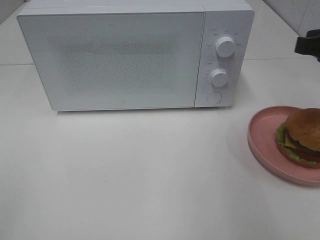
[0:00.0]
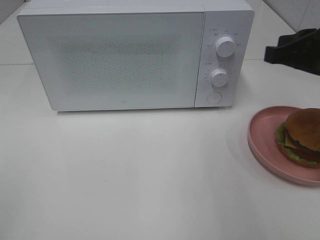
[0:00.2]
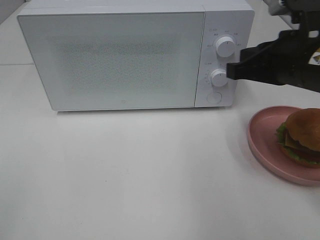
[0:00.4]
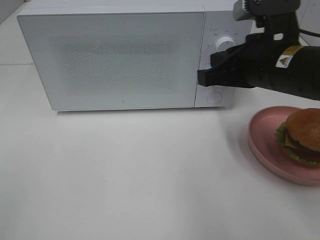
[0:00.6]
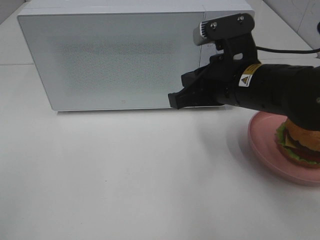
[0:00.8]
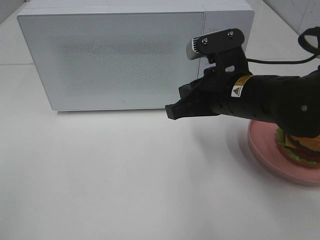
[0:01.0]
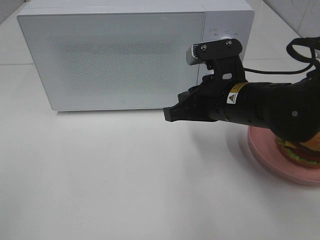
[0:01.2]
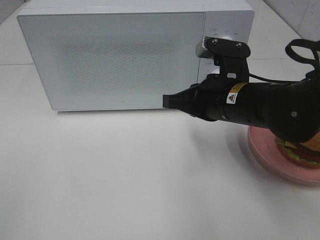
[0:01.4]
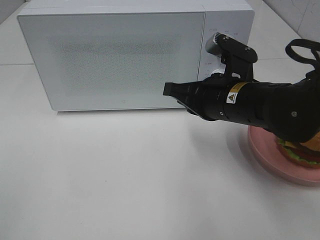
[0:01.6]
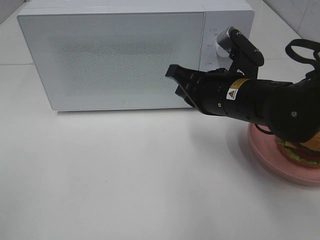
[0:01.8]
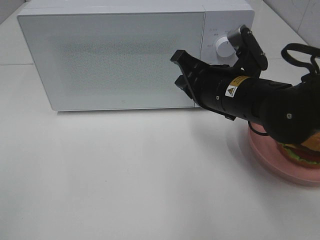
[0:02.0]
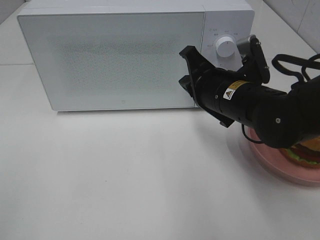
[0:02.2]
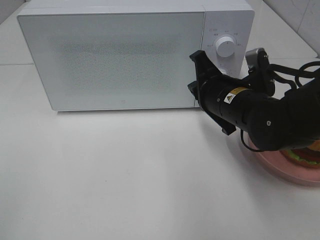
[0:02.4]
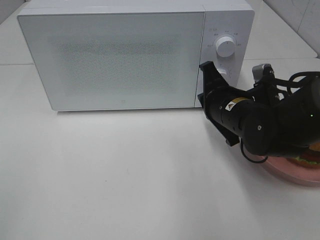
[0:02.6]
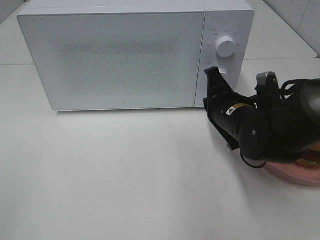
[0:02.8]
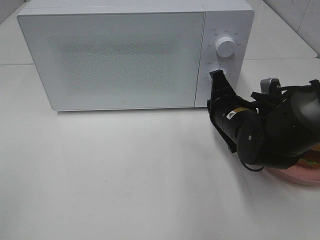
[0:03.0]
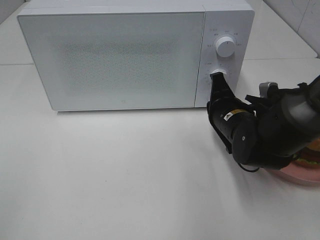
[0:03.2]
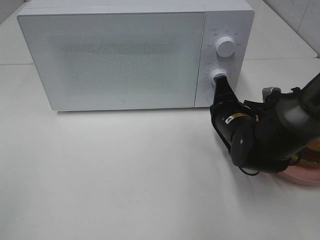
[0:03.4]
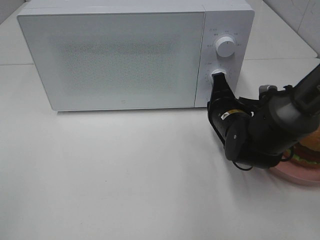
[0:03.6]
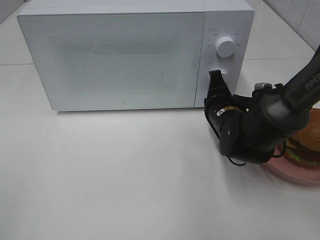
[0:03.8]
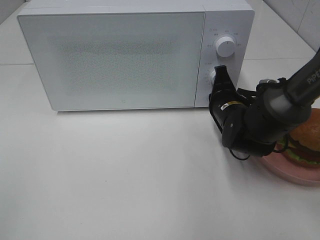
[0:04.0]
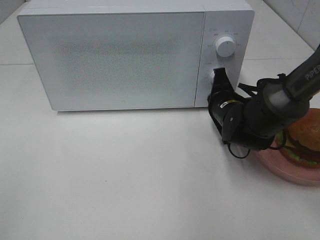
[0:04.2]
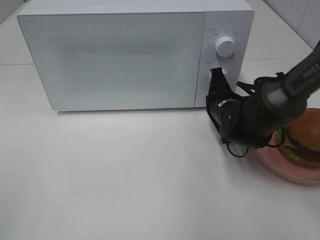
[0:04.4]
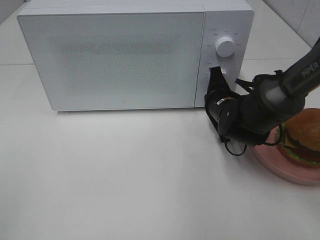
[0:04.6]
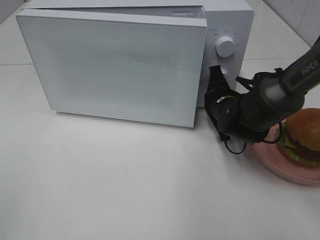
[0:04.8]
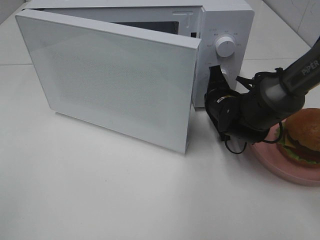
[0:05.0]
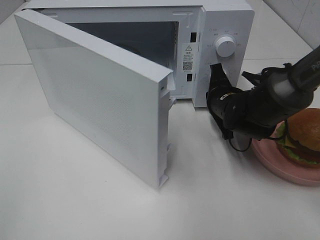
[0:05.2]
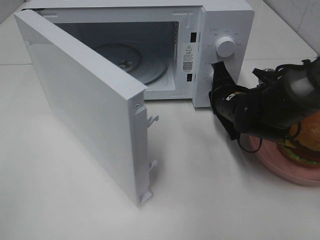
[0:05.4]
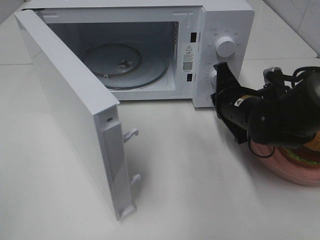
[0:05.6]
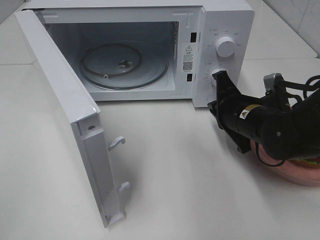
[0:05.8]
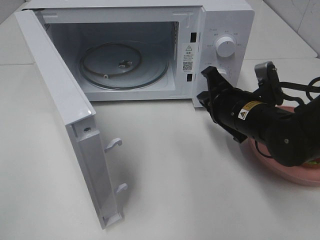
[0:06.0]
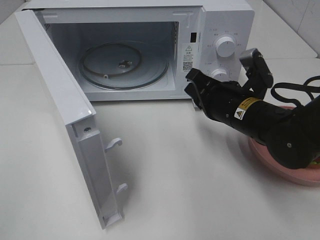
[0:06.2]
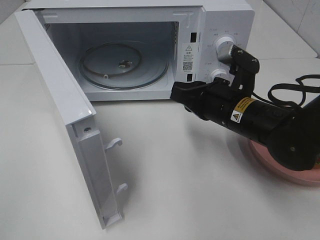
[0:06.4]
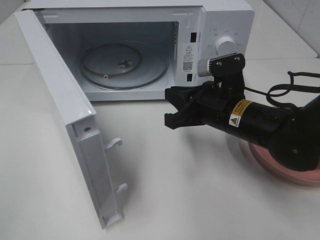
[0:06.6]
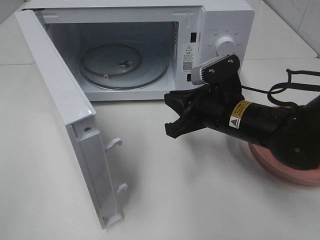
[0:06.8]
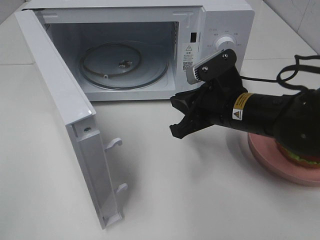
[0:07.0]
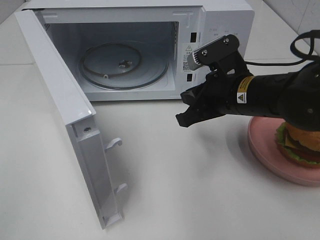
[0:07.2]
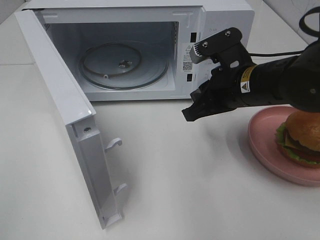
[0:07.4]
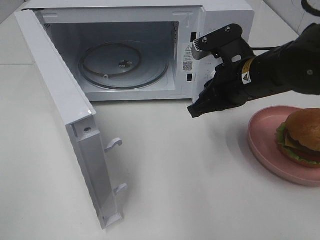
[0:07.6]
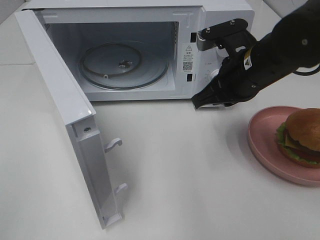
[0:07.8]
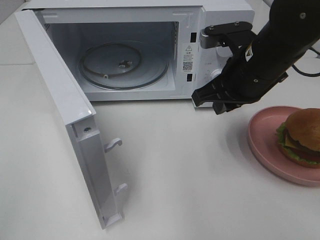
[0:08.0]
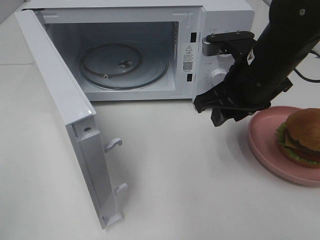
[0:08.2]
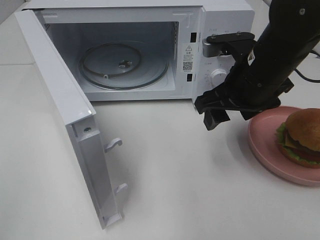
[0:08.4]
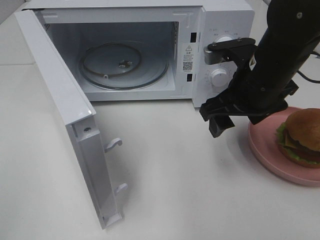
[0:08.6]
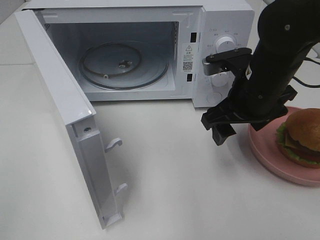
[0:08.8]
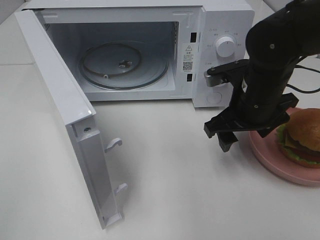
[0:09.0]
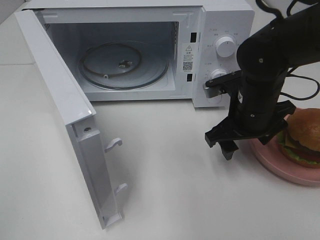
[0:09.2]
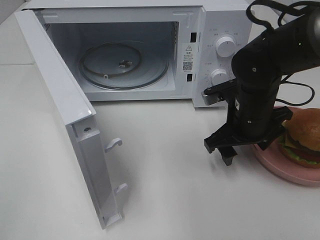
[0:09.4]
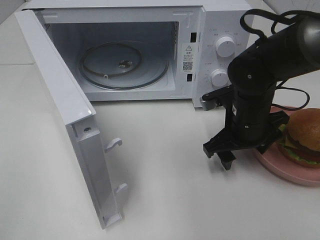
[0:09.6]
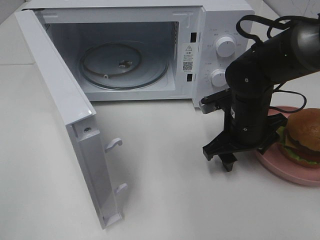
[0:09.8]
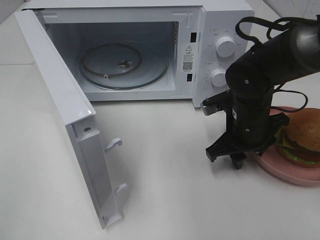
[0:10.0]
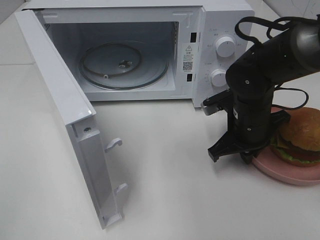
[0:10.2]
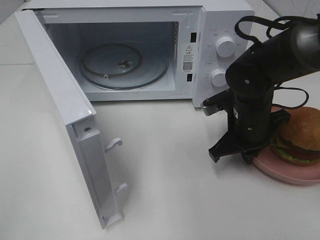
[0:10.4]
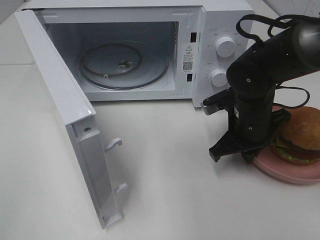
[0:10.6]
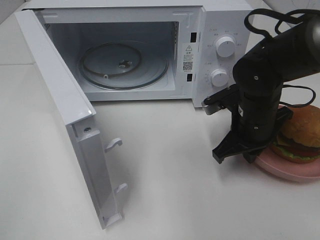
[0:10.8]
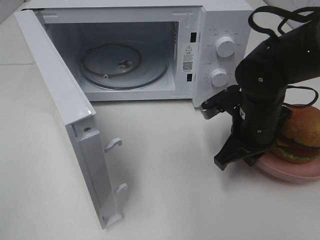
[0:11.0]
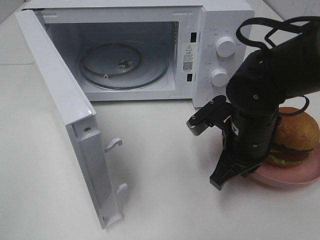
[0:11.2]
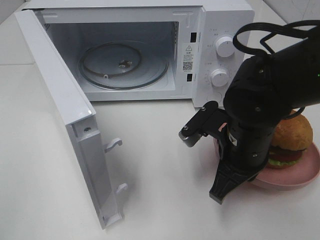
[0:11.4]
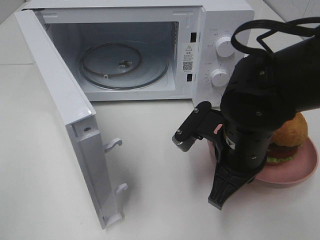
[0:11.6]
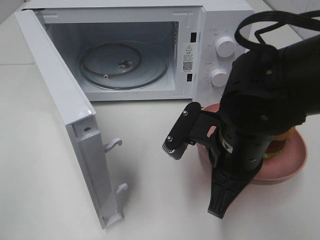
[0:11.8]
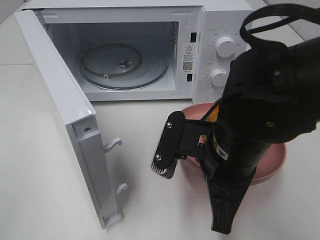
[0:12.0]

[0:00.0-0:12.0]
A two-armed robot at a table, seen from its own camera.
Task of the whole recording: Heat the burger.
Step, 0:00.0 to 0:05.4: Right hand: press the switch.
Step, 0:05.6 to 0:10.4: Right hand: grab the plate with the hamburger.
0:00.0 to 0:01.6: The right gripper shifts about 20 cm to the left and downward, and closes.
0:01.6 to 0:03.0: The right gripper heads downward, covering some 5 cm.
0:03.0 to 0:04.4: The right gripper moves forward, some 5 cm.
0:04.4 to 0:06.0: The right gripper moves backward, some 5 cm.
0:06.0 to 0:07.6: The right gripper moves upward, about 5 cm.
0:07.6 to 0:09.0: The right gripper opens up.
0:09.0 to 0:10.4: The right gripper goes roughly 5 cm downward, and closes up.
0:10.4 to 0:12.0: The right gripper travels backward, upward and to the left by roughly 15 cm.

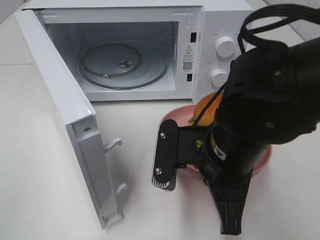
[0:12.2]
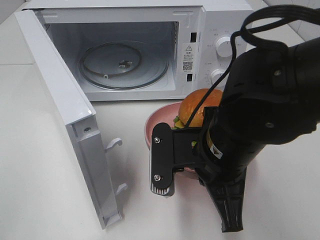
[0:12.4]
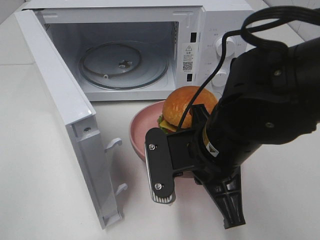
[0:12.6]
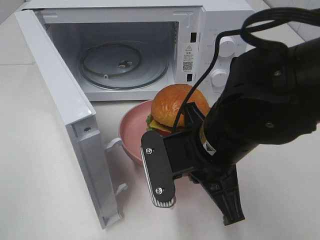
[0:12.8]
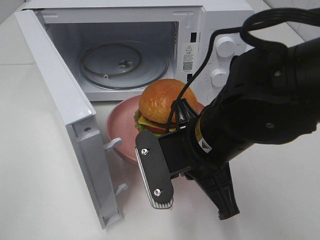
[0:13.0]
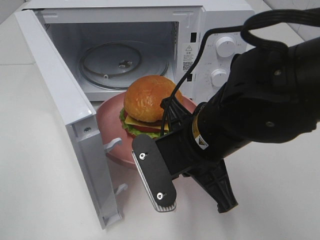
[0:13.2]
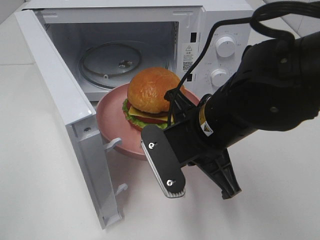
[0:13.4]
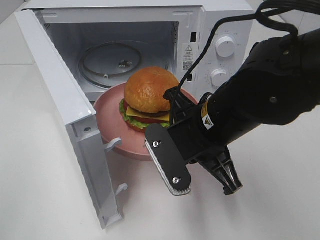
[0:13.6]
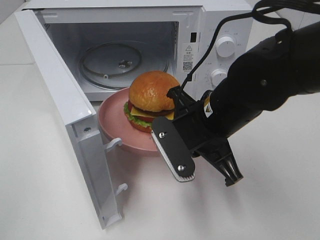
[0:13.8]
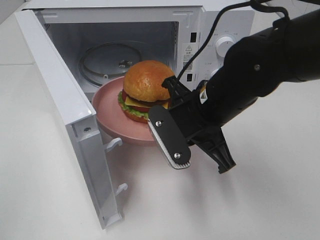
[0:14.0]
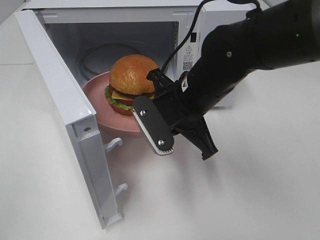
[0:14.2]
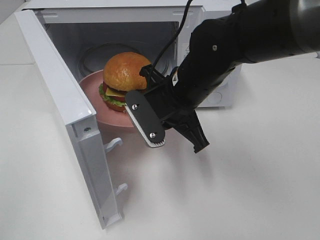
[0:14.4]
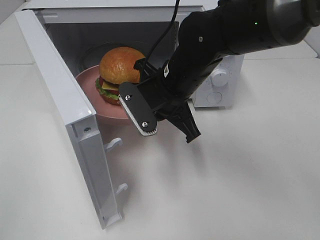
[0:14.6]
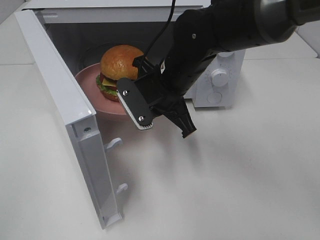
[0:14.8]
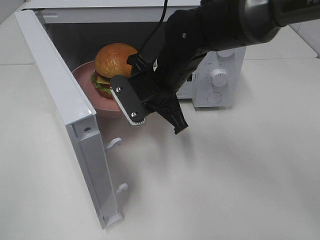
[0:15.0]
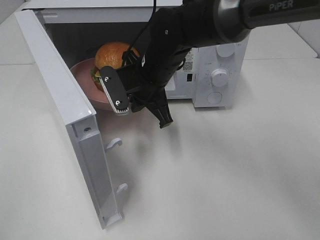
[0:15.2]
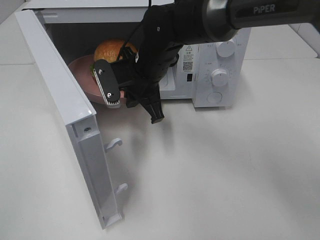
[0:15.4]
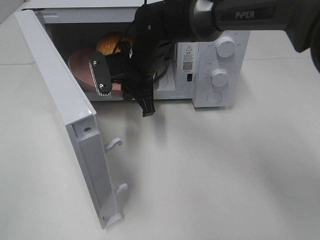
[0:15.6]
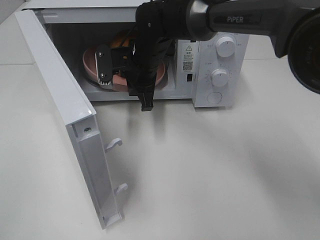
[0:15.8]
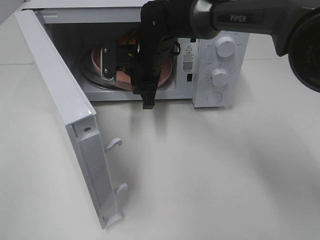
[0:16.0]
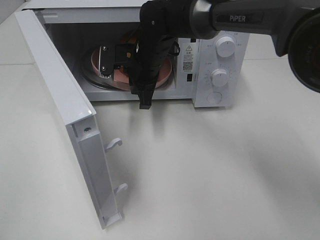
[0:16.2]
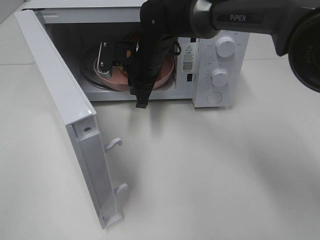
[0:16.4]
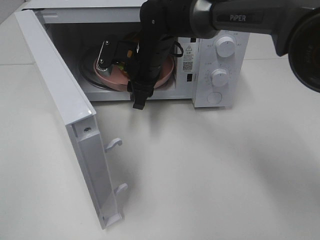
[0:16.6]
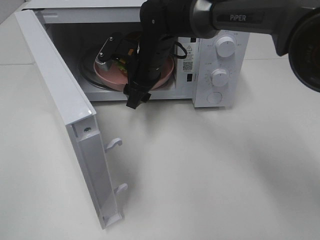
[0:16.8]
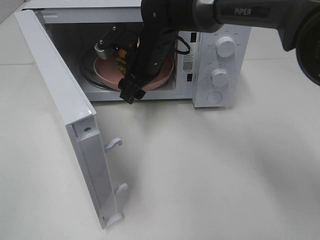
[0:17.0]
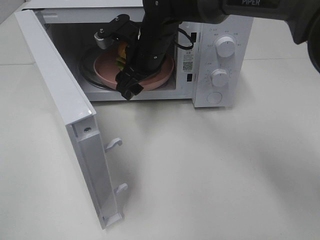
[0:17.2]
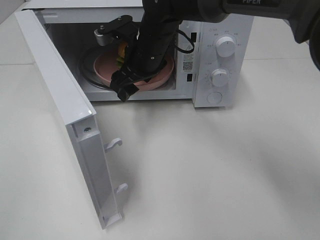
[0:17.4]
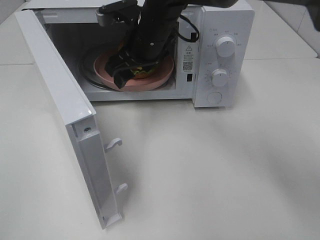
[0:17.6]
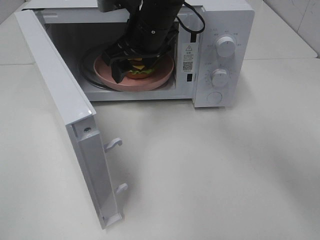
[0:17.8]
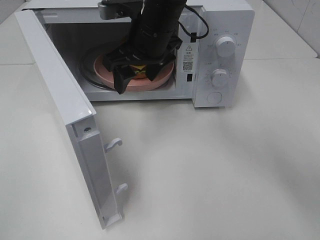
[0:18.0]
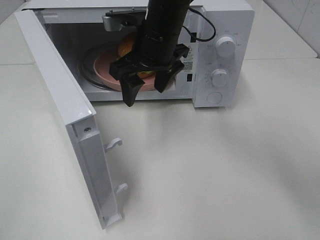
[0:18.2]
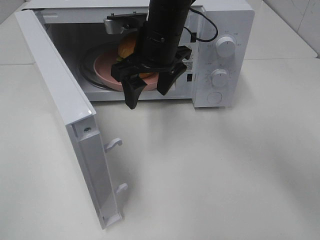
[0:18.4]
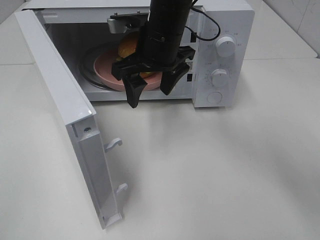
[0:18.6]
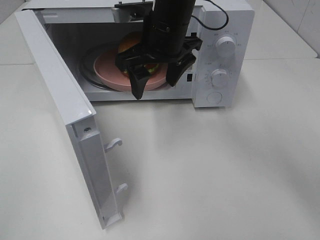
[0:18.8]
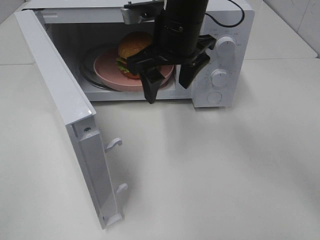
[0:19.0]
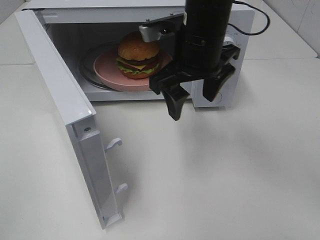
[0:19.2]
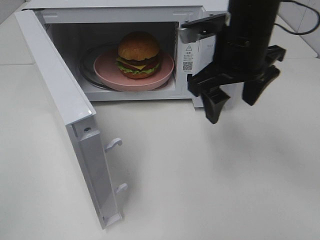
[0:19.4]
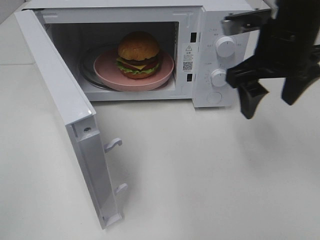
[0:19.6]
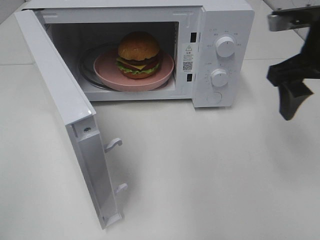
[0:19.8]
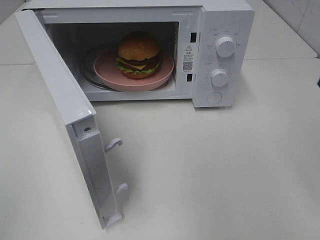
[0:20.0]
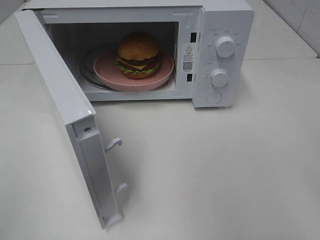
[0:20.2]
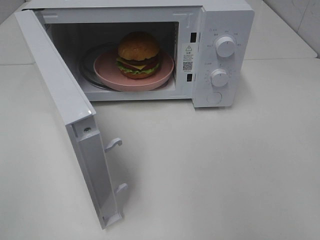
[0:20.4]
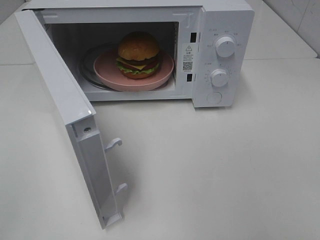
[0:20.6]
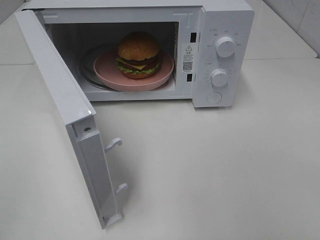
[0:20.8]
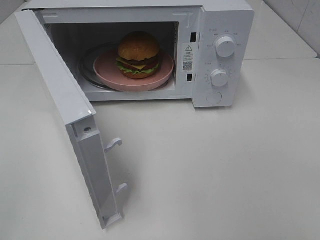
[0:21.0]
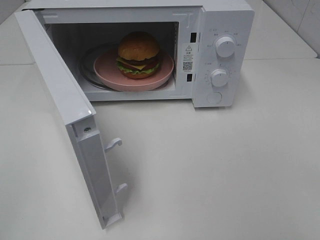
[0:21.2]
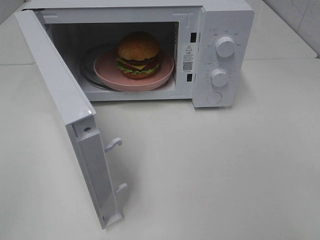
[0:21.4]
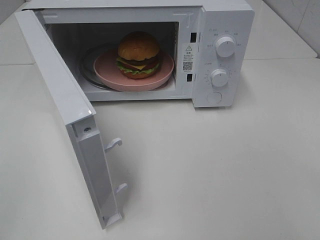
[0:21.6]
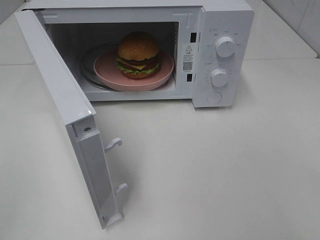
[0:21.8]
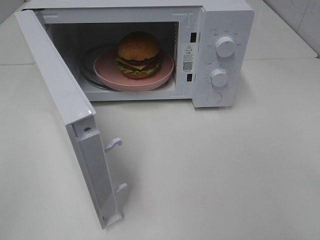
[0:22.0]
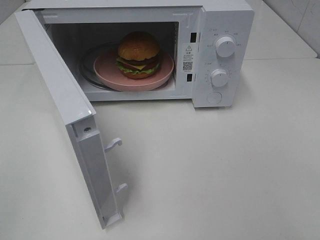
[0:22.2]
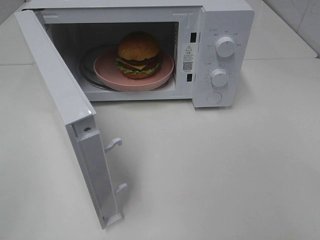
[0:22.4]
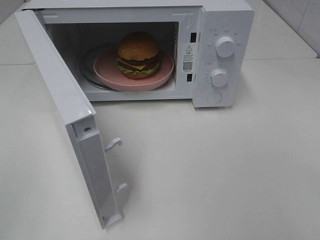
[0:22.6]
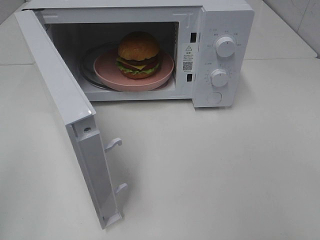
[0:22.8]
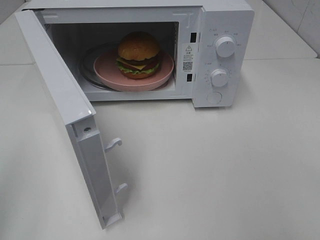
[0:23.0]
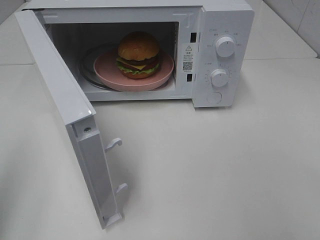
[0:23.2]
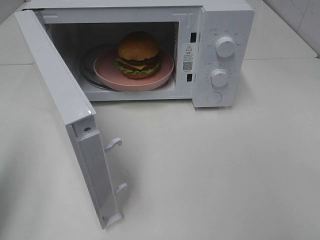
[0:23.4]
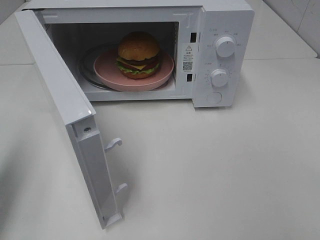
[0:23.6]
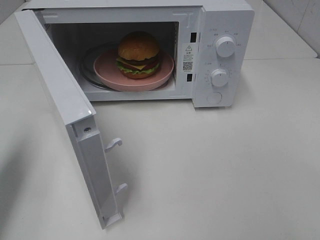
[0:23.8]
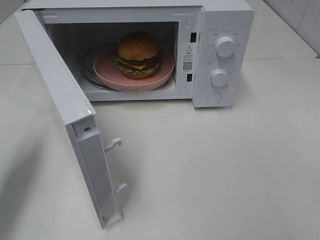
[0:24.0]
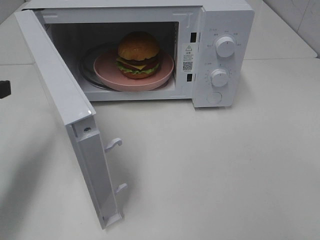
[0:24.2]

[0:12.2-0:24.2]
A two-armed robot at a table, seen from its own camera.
Task of the whole recording: Heat the burger.
Step, 0:12.2 to 0:16.4: Right hand: place the plate in the microwave.
0:12.2 to 0:13.8: The right gripper goes roughly 5 cm forward.
0:13.8 to 0:15.2: The right gripper moves forward and to the left, roughly 15 cm.
0:15.2 to 0:16.6: The right gripper shifts about 5 cm forward, and opens up.
0:16.6 to 0:18.2: The right gripper heads upward, covering roughly 5 cm, and opens its fingers.
0:18.2 to 0:19.8: The right gripper travels to the right by about 25 cm.
0:19.8 to 0:21.2: The right gripper travels backward by about 25 cm.
0:22.6 to 0:24.2: The left gripper heads forward, covering about 25 cm.
